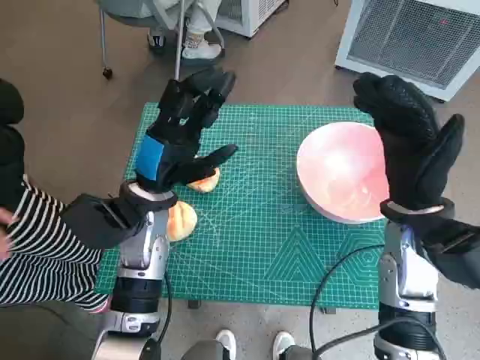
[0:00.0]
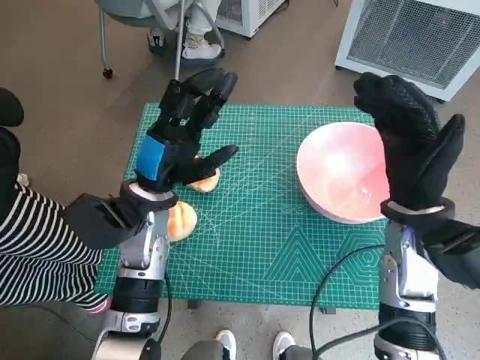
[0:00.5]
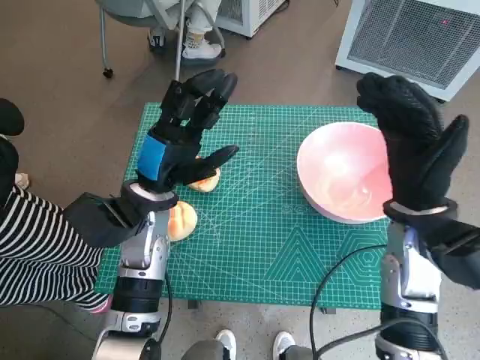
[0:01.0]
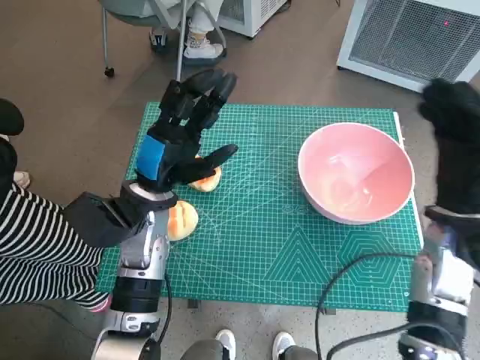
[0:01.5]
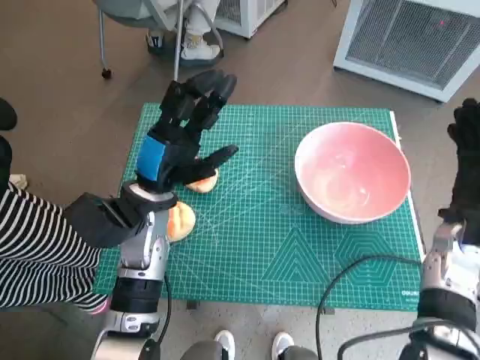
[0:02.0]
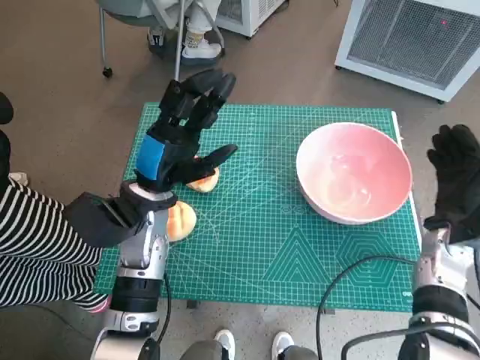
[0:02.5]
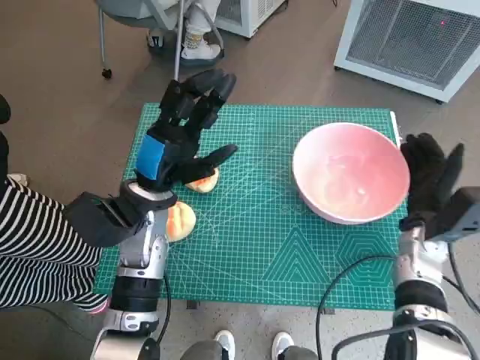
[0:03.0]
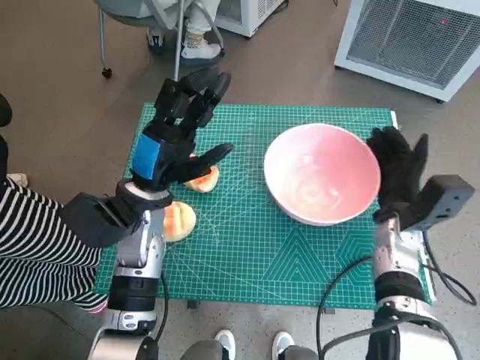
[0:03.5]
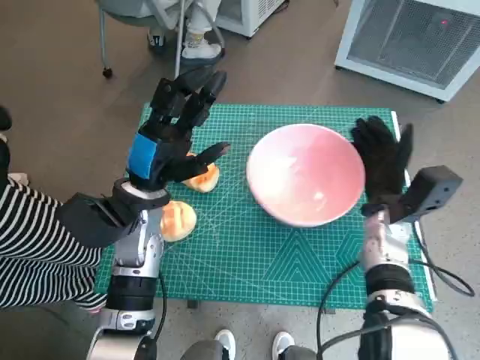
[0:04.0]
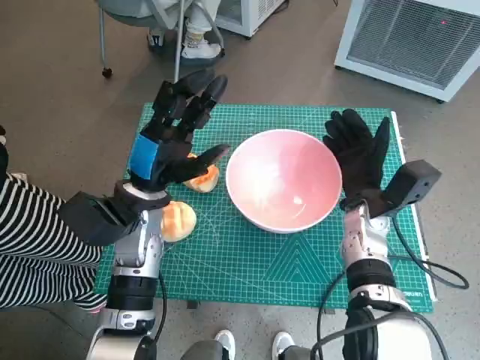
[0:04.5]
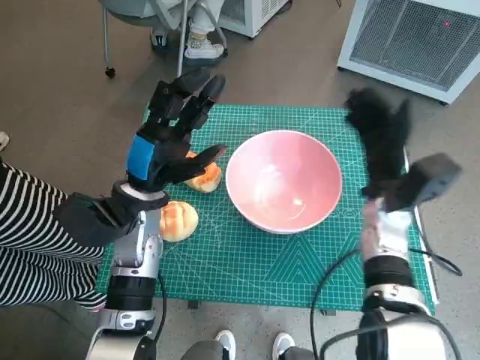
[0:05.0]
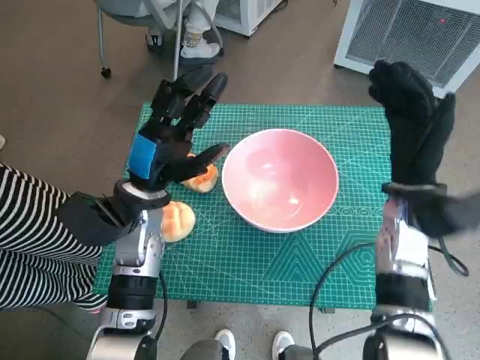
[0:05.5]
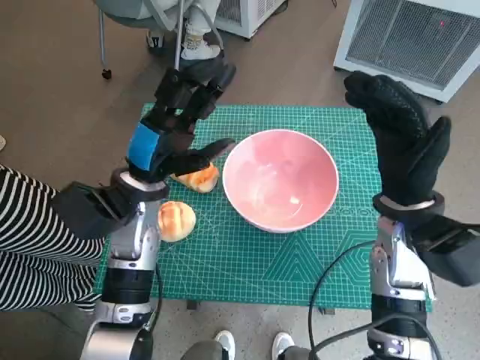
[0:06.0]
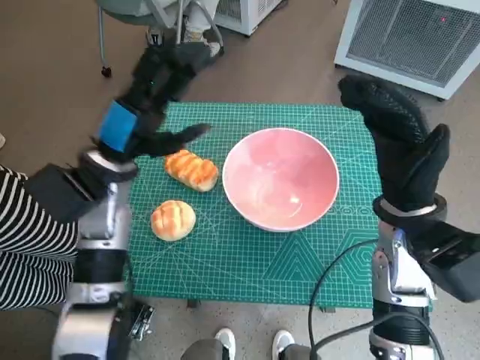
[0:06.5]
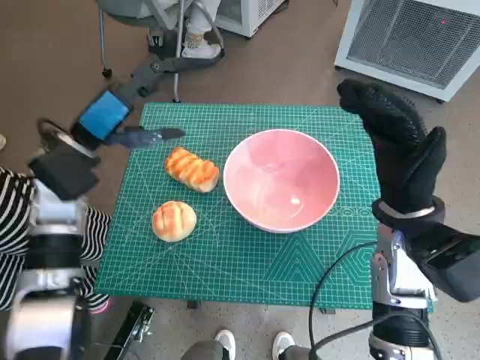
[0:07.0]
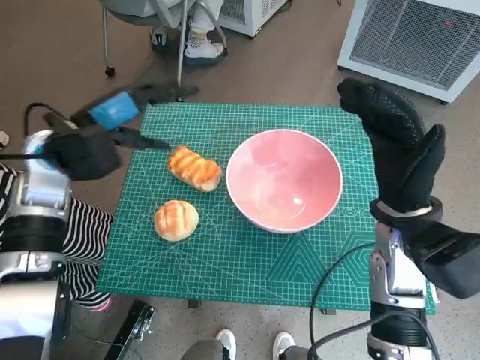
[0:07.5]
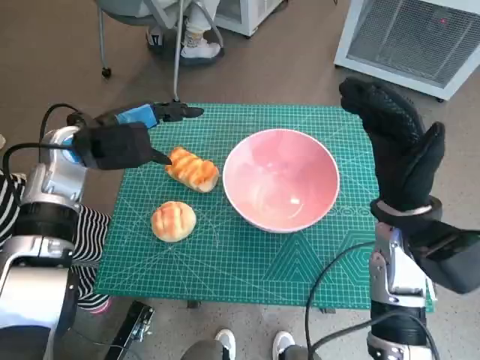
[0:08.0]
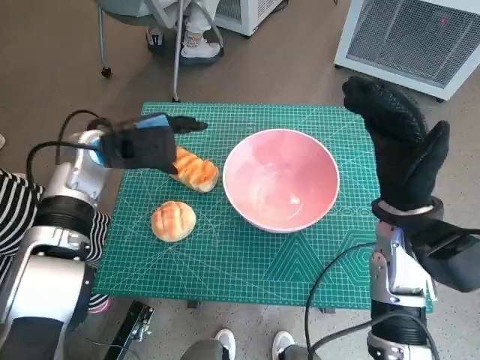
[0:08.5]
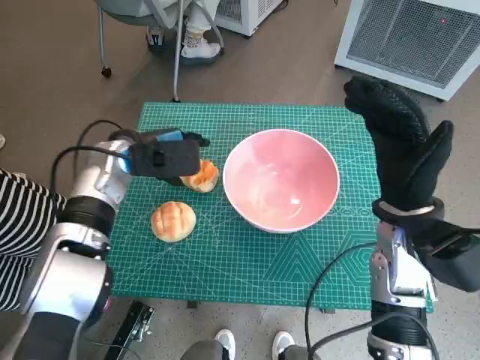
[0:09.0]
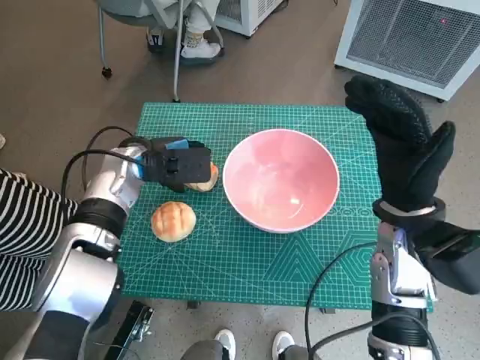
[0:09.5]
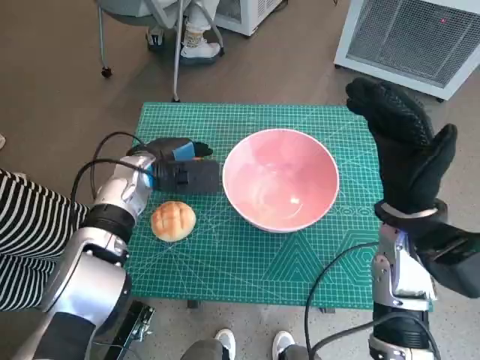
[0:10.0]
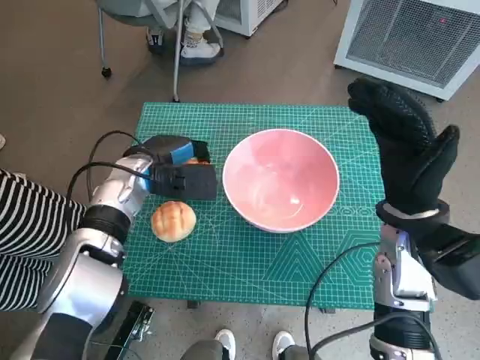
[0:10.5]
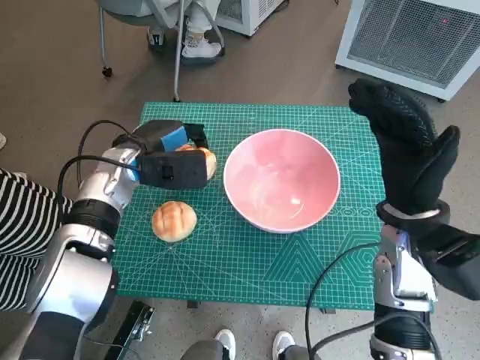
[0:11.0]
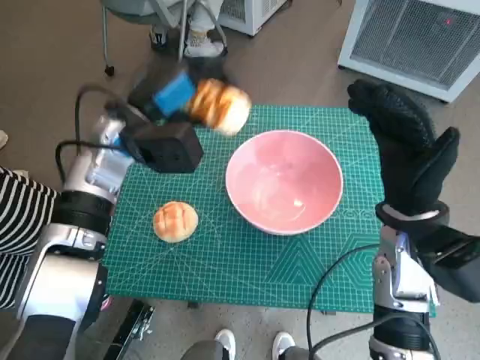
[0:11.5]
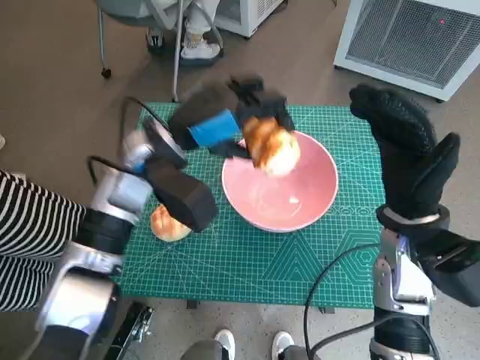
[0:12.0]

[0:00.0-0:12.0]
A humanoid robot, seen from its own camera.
Task of the whole recording: Push the bowl into the center of the table and put the bread into the bowl.
Step, 0:00.0 to 0:04.5: Move the pink bowl to the center of table with right hand.
Step, 0:05.0 to 0:10.0: Grasp the long bread with left hand.
0:02.0 to 0:04.0: The right hand moves to the left, roughly 10 cm.
0:04.0 to 0:06.0: The right hand moves upward, some 10 cm.
0:06.0 to 0:08.0: The left hand travels to the left by approximately 10 cm.
0:08.0 to 0:10.0: The left hand is displaced downward and to the right by some 10 cm.
0:10.0 to 0:12.0: The left hand shifts about 10 cm upward.

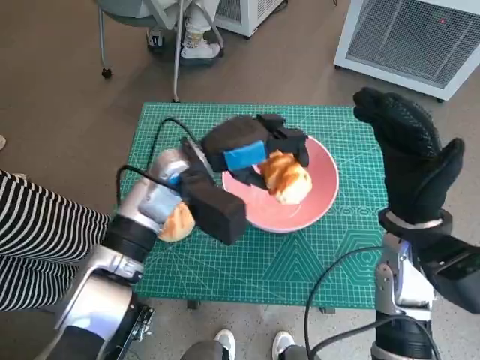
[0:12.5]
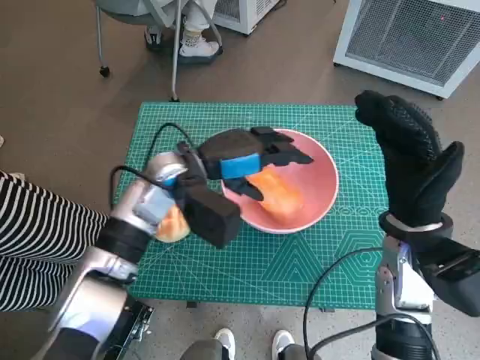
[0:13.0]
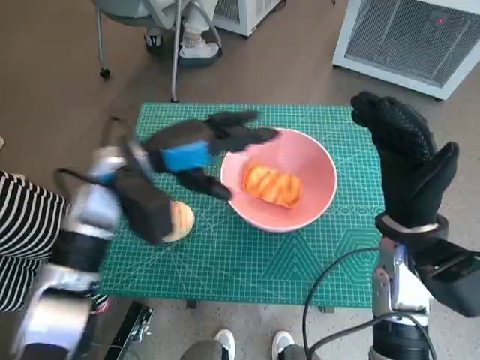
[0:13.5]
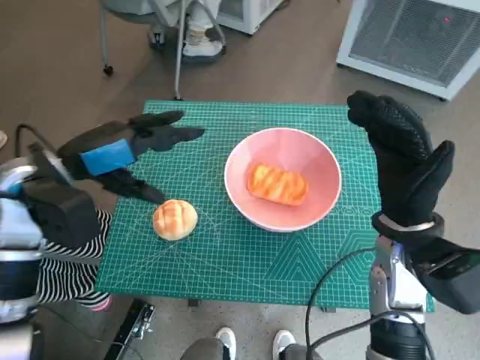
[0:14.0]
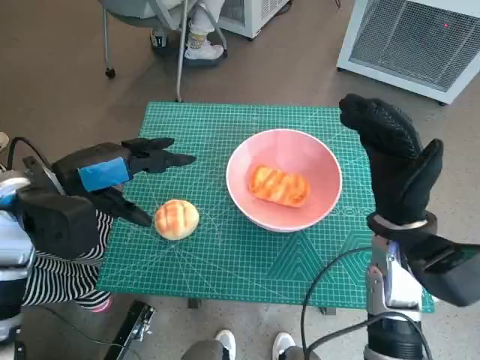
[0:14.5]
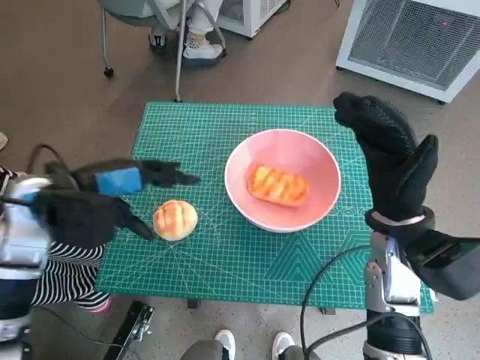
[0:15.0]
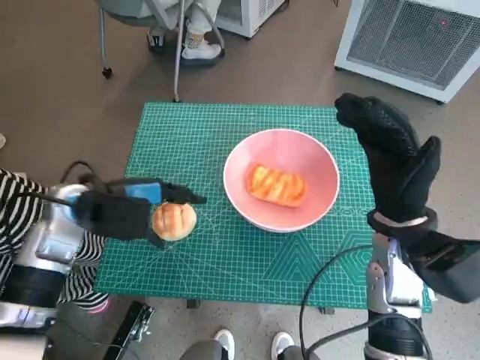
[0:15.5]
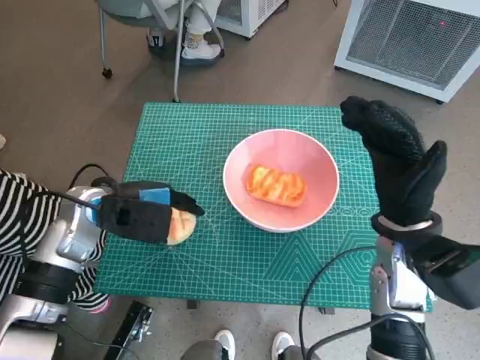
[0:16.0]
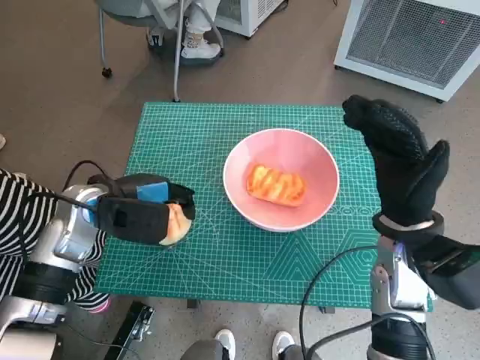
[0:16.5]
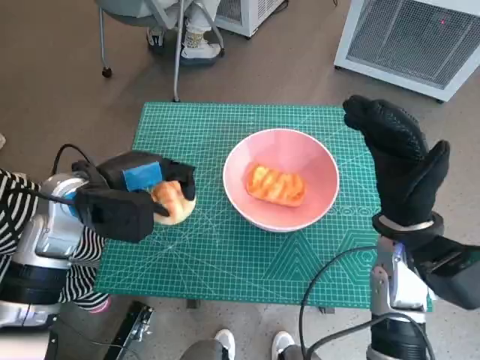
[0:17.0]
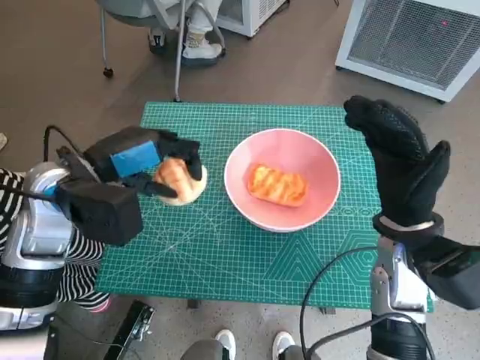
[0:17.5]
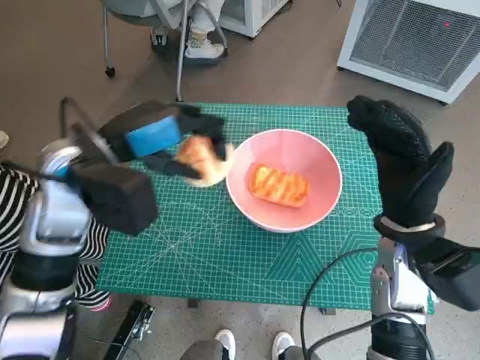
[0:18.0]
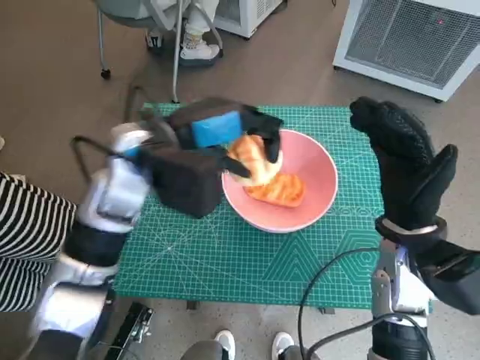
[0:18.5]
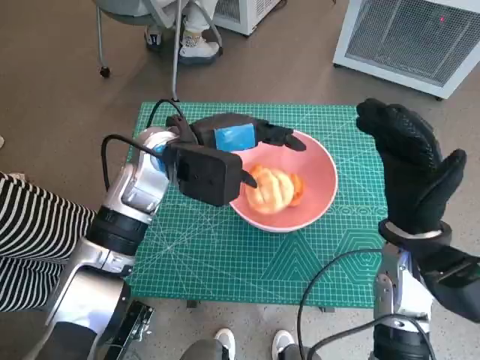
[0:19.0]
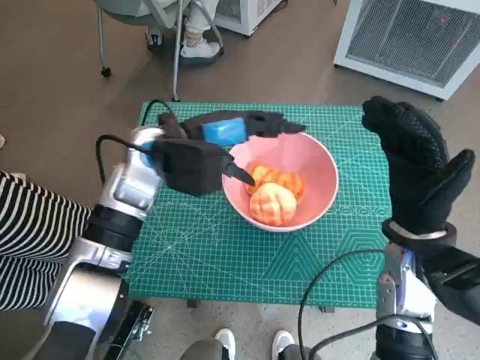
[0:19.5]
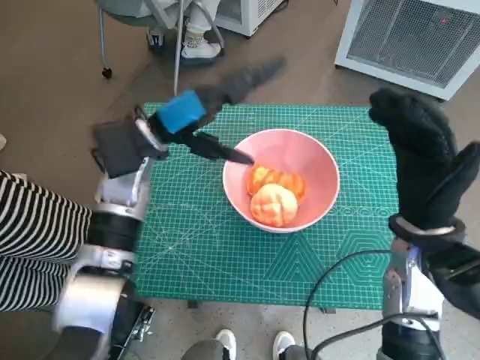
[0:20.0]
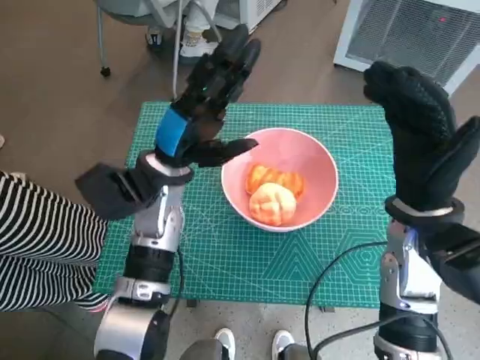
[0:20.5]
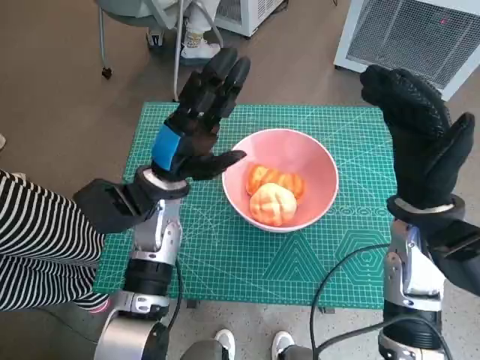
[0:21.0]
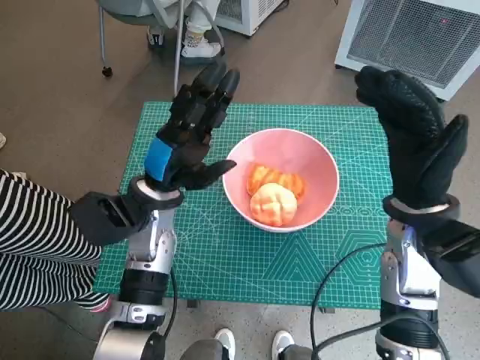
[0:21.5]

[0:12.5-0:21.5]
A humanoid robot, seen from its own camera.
Task of the whole recording: Push the bowl into the center of the table and put the bread into the bowl.
Step, 0:14.0 to 0:16.0: Grasp the round bread with left hand.
Step, 0:16.5 to 0:19.5: Place the round bread in pink bowl with left hand.
0:12.5 to 0:14.5: The left hand goes about 15 cm to the left and backward.
0:17.0 to 0:19.5: The left hand shifts about 10 cm to the right and forward.
0:19.5 to 0:21.5: The left hand shifts roughly 5 cm downward.

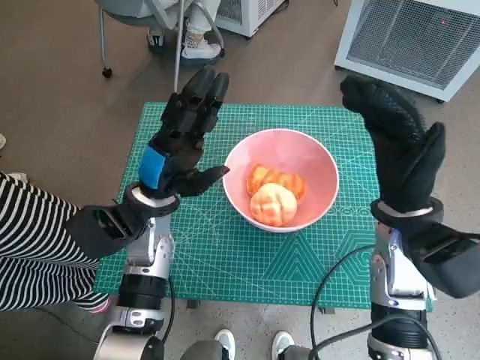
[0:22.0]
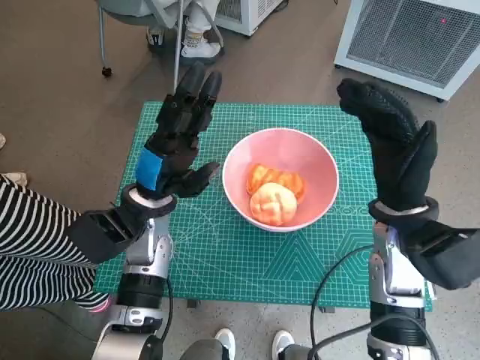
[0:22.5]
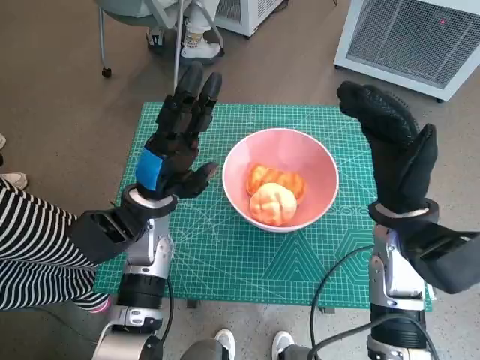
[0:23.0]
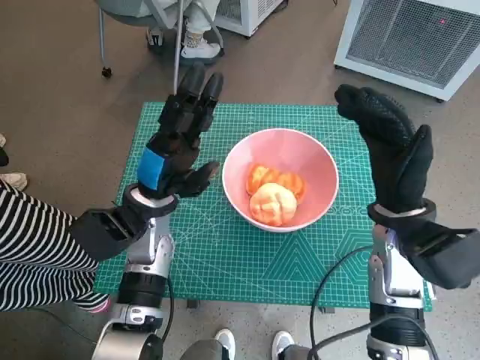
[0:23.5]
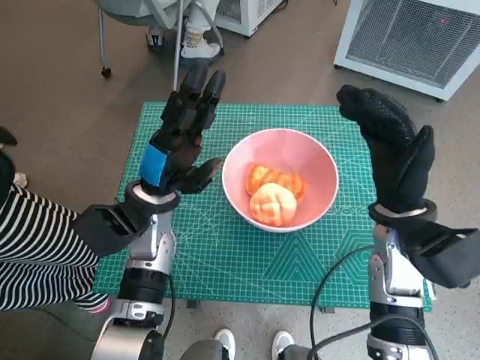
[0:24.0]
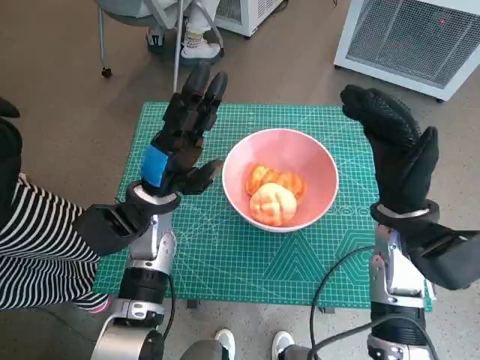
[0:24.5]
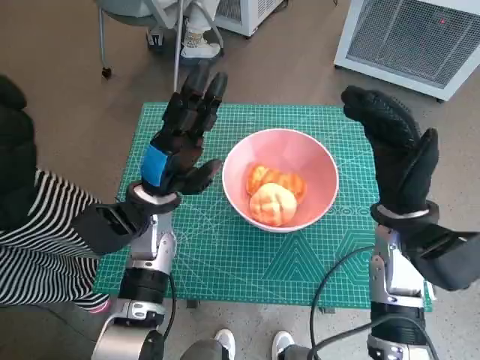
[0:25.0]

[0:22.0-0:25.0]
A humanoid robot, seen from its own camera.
Task of the whole recording: Push the bowl into the center of the table and put the bread into the bowl.
0:22.0 to 0:23.5: The two hands keep their place.
0:23.5 to 0:25.0: Both hands stay put.
